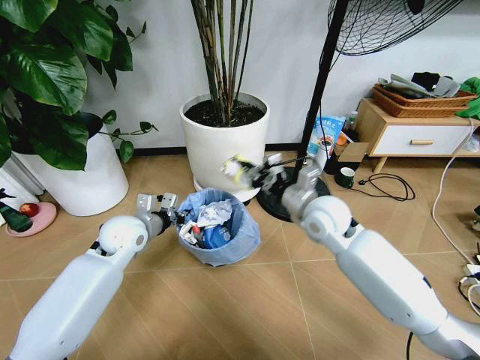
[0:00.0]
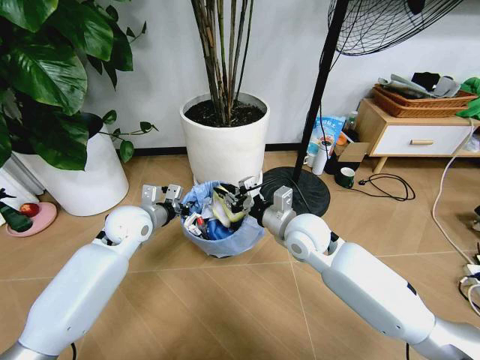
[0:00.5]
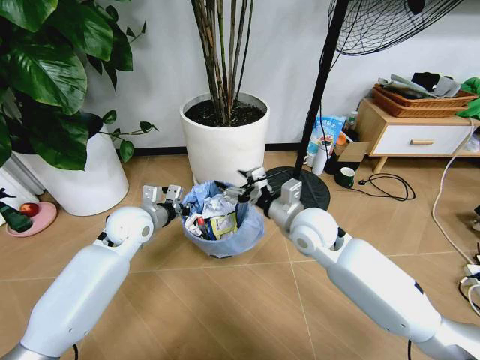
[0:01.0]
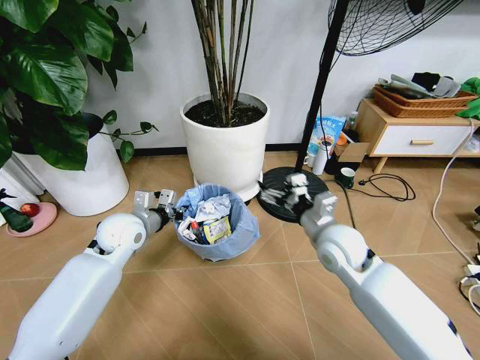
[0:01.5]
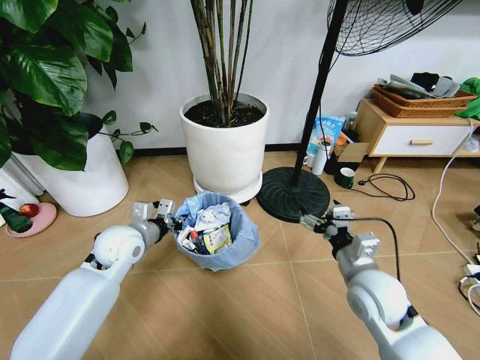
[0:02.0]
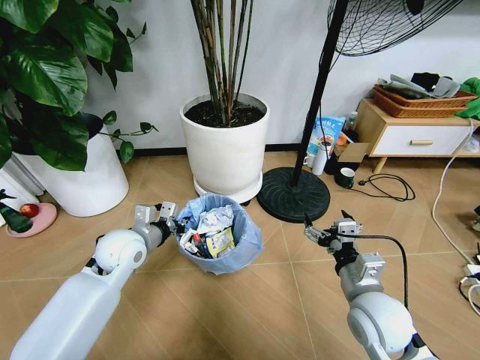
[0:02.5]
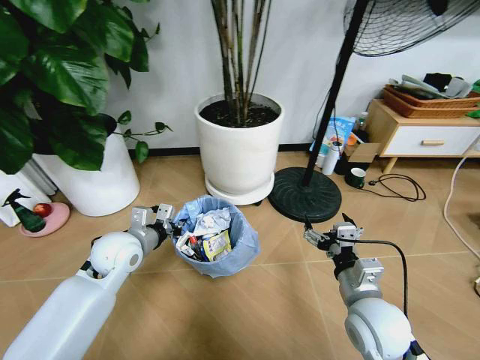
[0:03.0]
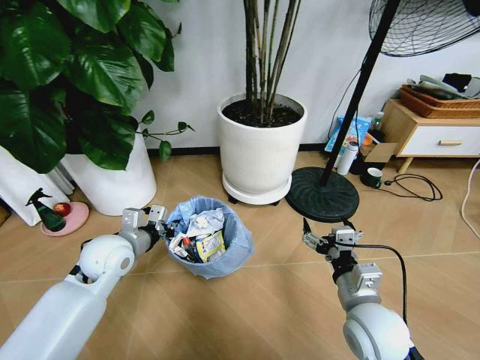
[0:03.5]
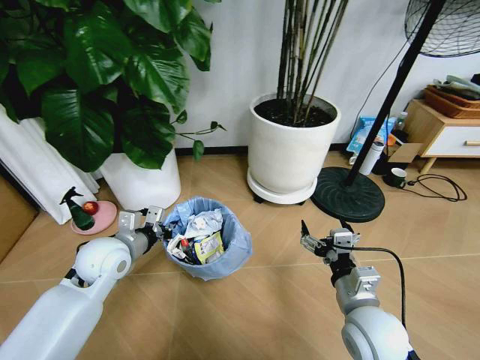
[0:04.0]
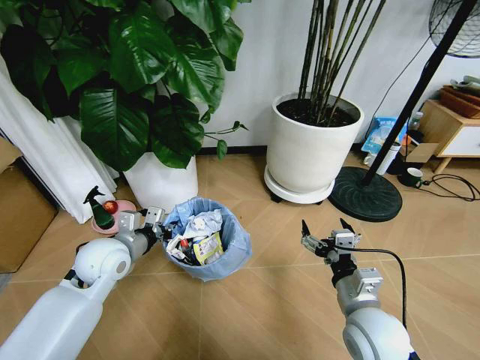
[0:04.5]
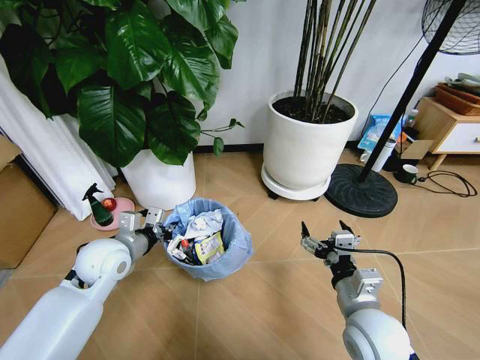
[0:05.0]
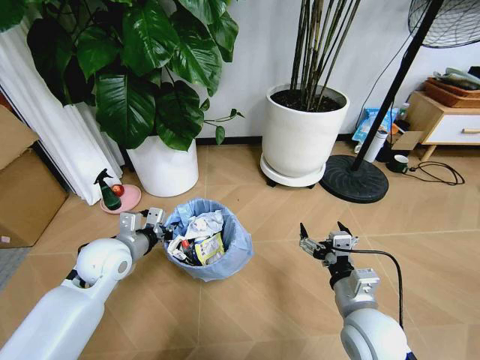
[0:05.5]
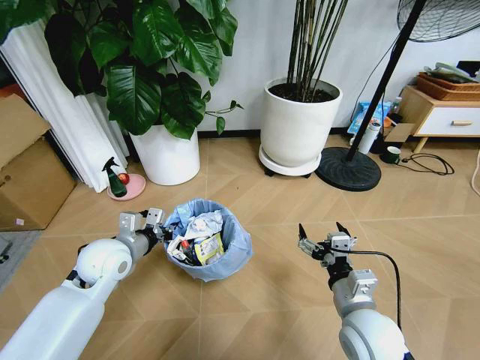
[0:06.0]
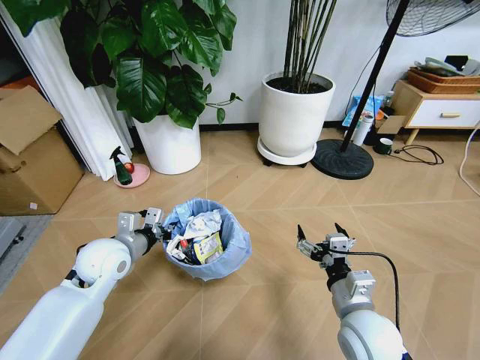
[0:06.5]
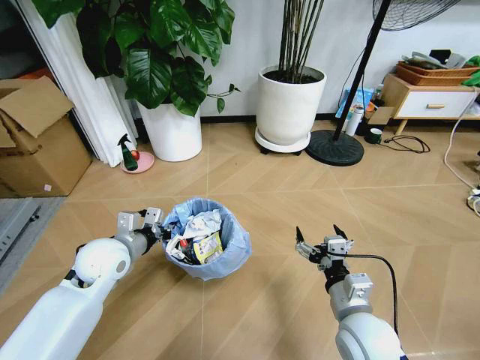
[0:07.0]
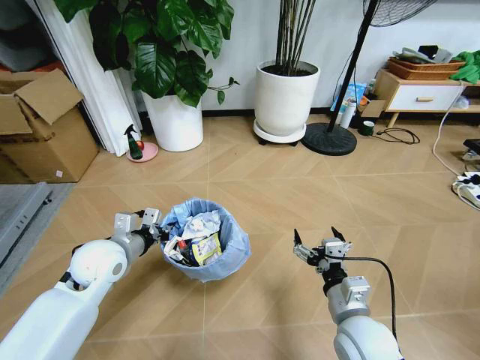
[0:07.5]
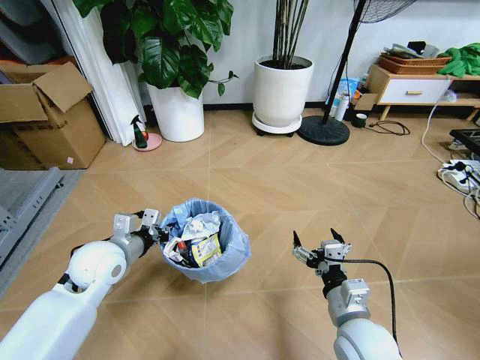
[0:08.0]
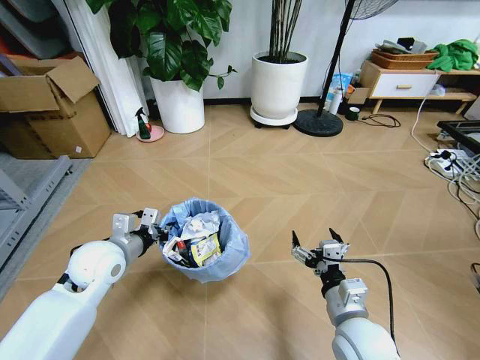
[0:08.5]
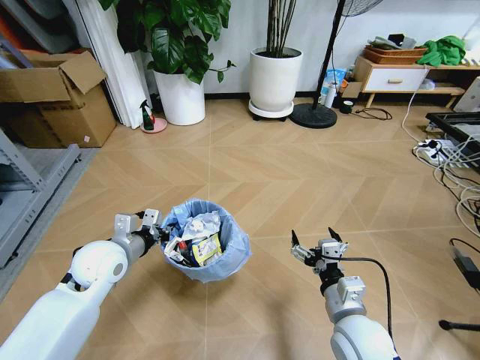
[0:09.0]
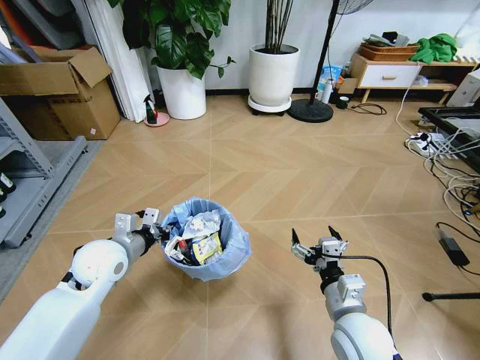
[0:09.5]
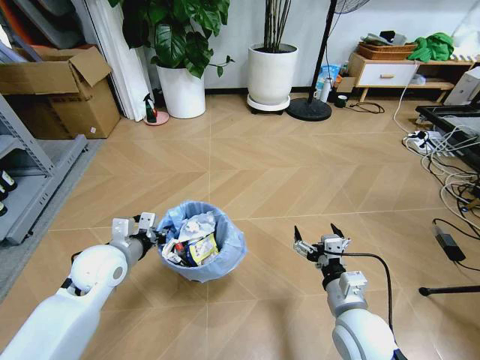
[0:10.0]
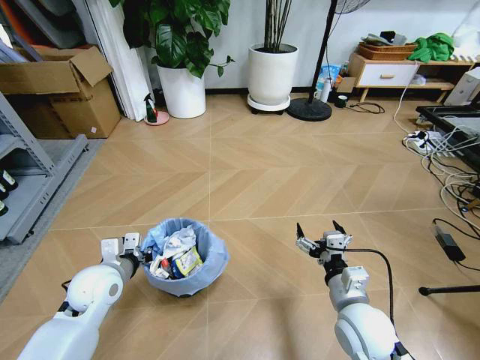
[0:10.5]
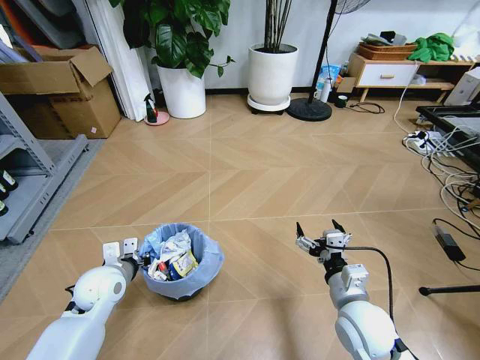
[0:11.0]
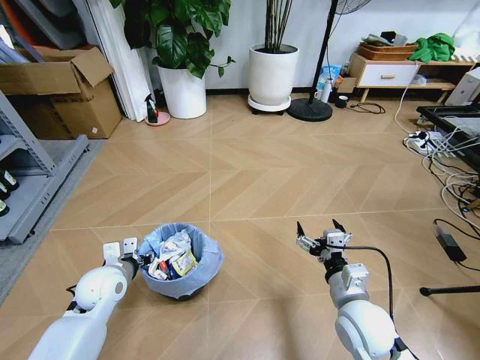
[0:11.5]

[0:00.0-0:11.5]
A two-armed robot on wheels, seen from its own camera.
Task of the whole recording: Pick up the trash bin and place the garbage on the floor into it.
0:00.0 to 0:02.0: The right gripper moves backward, to the right and downward, approximately 15 cm, and opens up.
0:02.0 to 0:04.0: The right gripper goes roughly 5 cm backward.
0:09.5 to 0:11.5: The left gripper moves downward, some 10 cm, and opens its fingers.

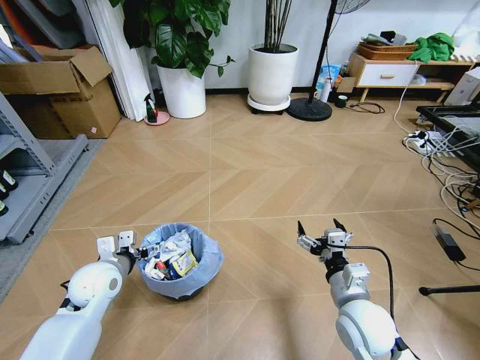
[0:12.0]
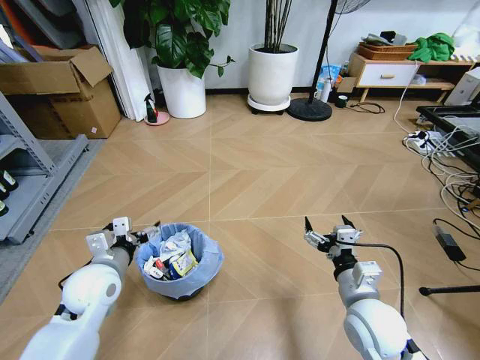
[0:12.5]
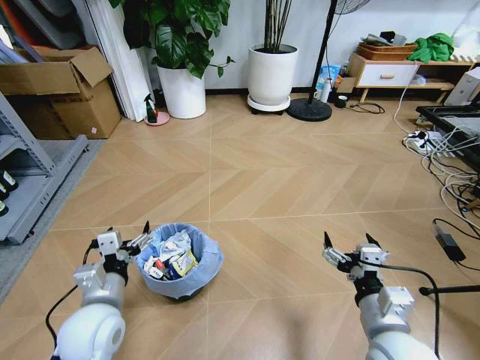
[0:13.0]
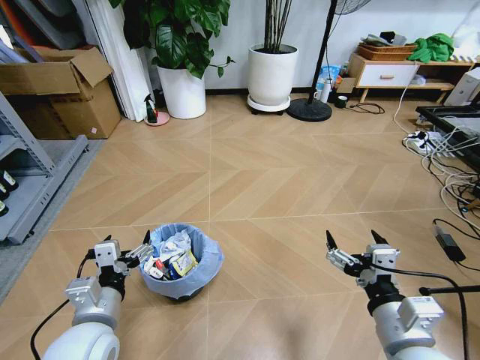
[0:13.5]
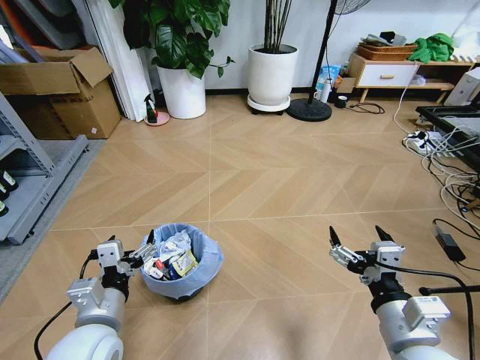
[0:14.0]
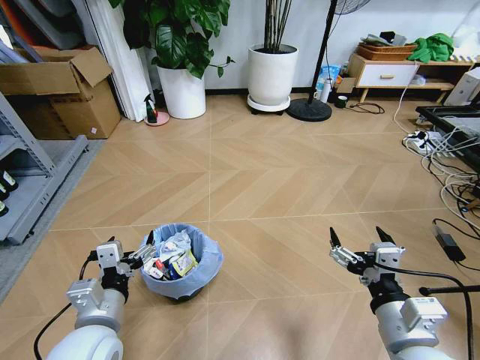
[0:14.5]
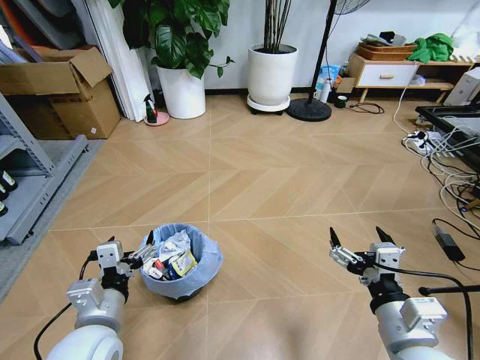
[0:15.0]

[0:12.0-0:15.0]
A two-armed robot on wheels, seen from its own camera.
Task of the whole recording: Pick up the trash bin and place the garbage on the floor into it.
0:12.0 to 0:13.5: The right gripper goes roughly 15 cm backward and upward. The left gripper heads backward and to the right, covering about 15 cm.
0:13.5 to 0:15.0: Both grippers stay about where they are.
